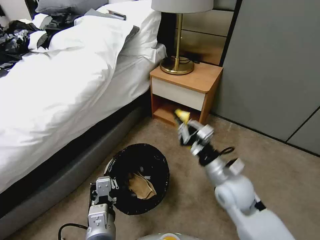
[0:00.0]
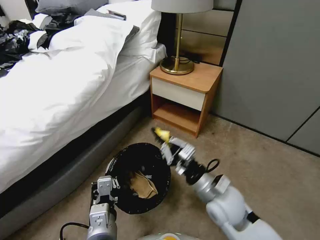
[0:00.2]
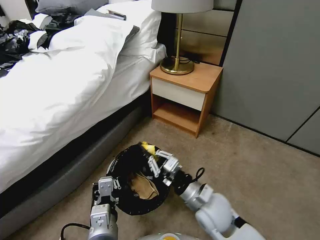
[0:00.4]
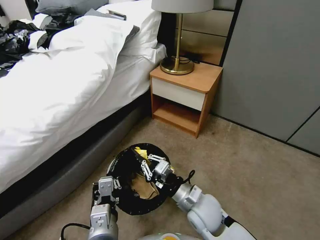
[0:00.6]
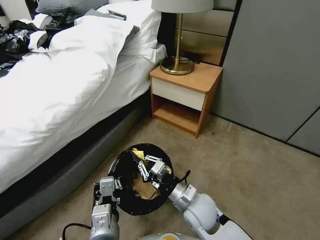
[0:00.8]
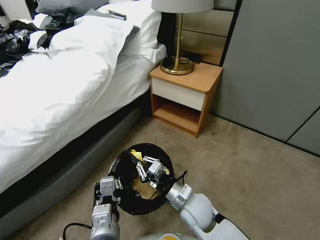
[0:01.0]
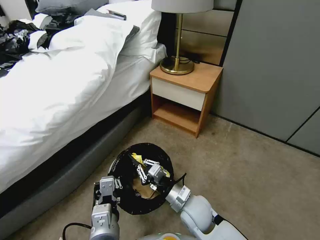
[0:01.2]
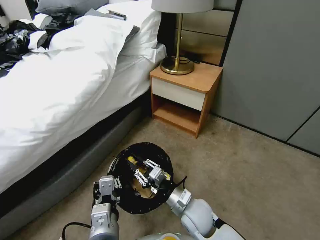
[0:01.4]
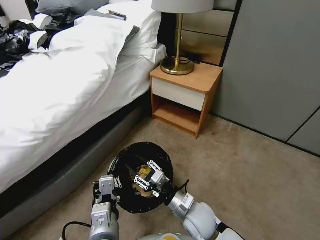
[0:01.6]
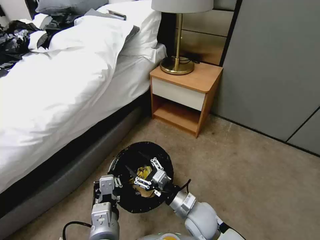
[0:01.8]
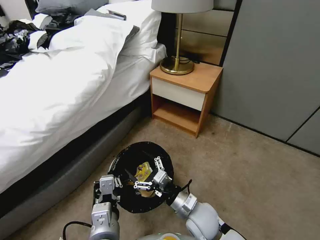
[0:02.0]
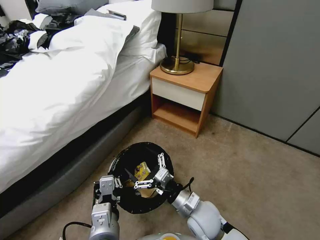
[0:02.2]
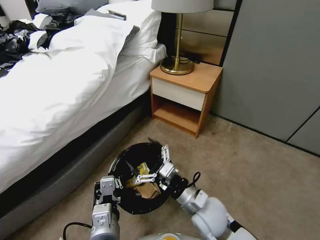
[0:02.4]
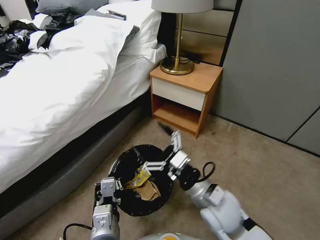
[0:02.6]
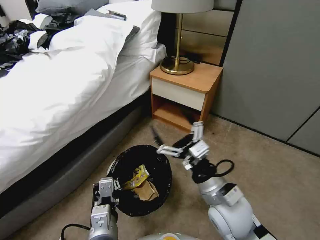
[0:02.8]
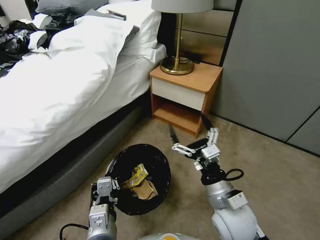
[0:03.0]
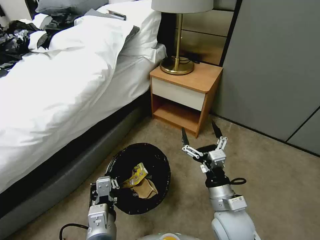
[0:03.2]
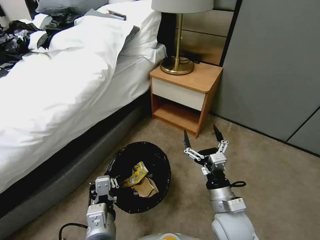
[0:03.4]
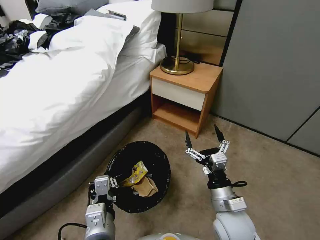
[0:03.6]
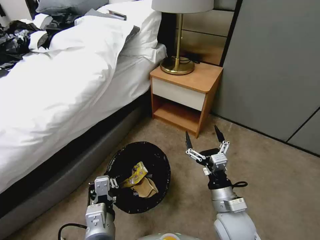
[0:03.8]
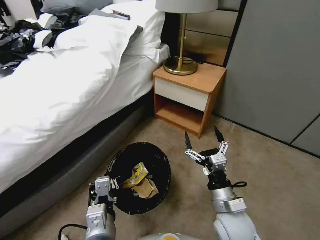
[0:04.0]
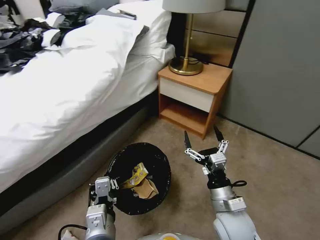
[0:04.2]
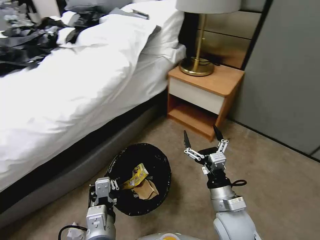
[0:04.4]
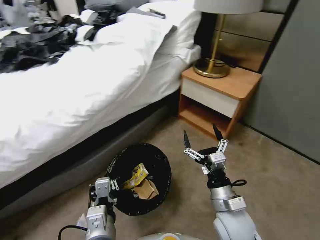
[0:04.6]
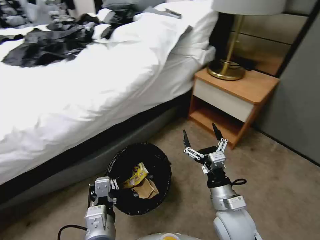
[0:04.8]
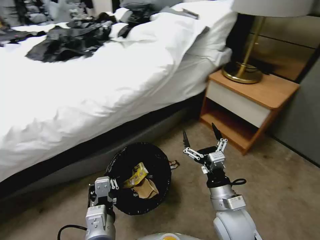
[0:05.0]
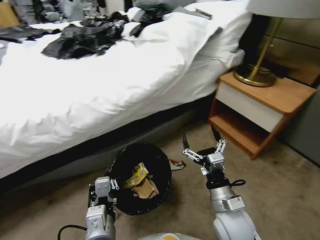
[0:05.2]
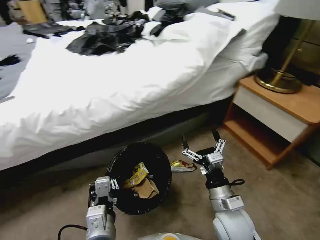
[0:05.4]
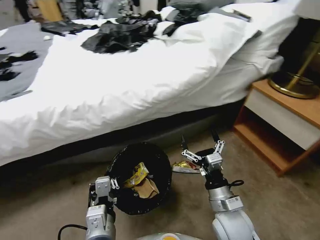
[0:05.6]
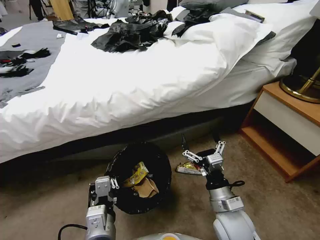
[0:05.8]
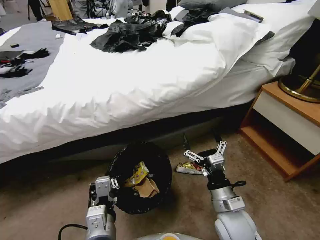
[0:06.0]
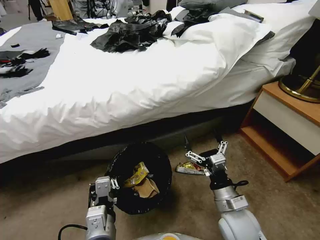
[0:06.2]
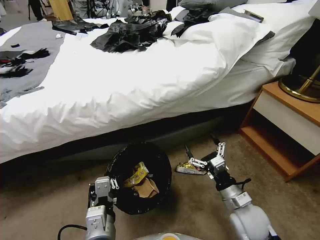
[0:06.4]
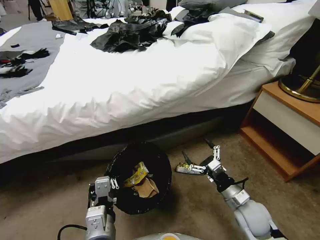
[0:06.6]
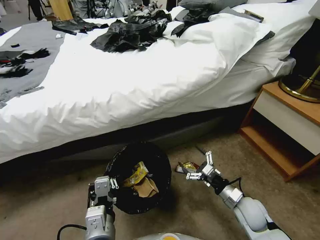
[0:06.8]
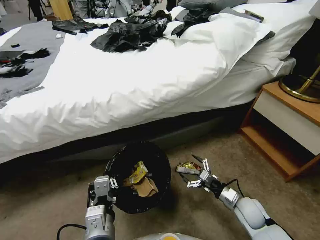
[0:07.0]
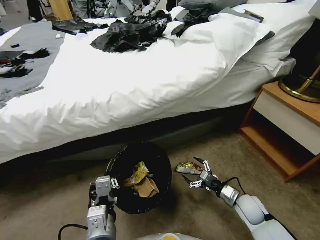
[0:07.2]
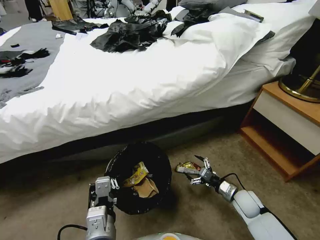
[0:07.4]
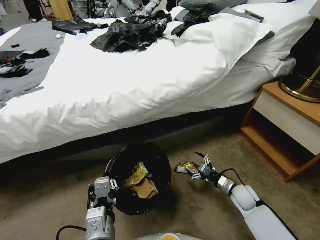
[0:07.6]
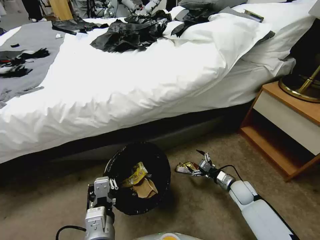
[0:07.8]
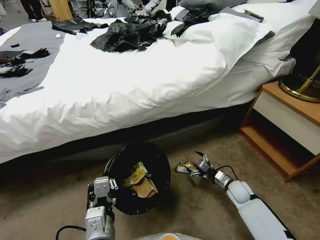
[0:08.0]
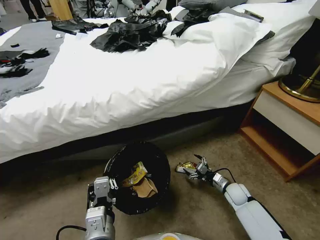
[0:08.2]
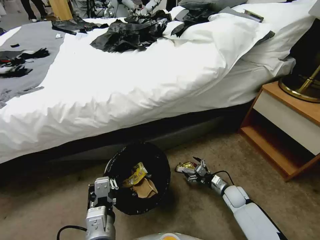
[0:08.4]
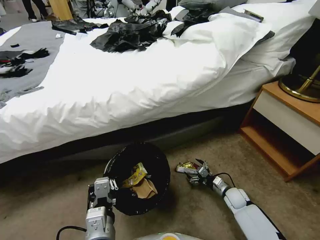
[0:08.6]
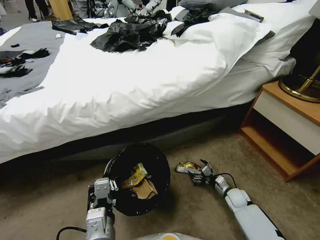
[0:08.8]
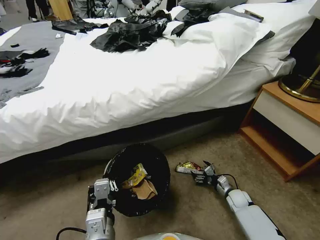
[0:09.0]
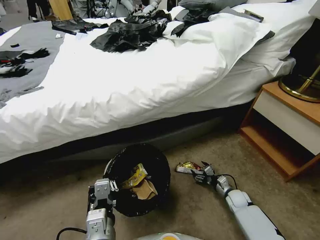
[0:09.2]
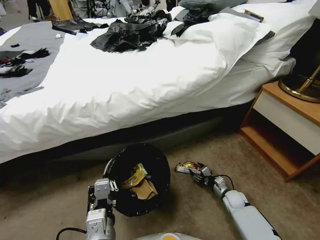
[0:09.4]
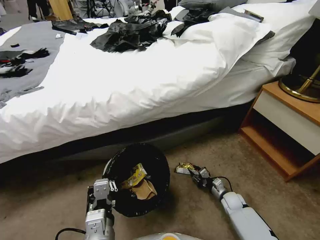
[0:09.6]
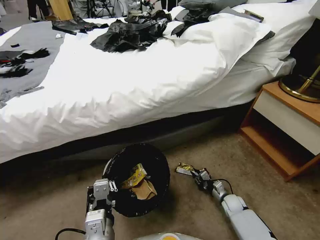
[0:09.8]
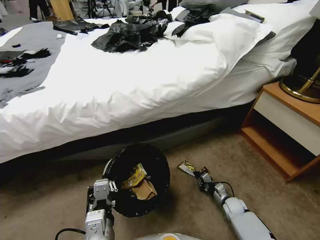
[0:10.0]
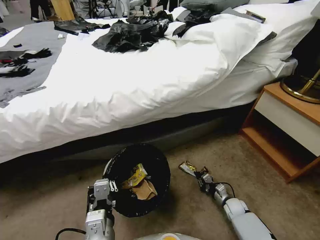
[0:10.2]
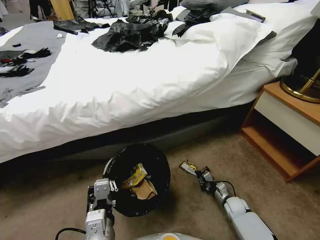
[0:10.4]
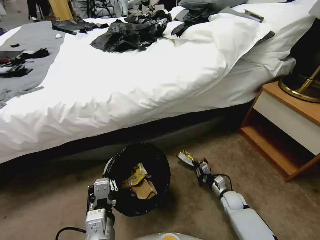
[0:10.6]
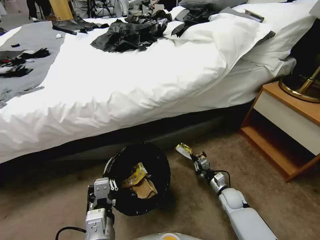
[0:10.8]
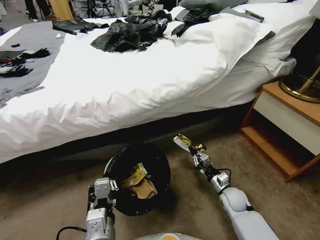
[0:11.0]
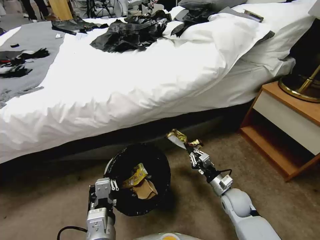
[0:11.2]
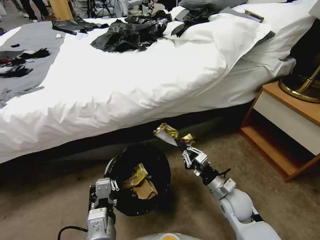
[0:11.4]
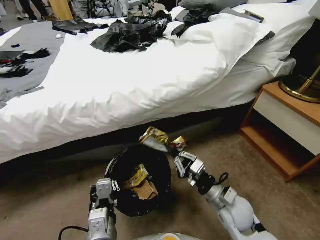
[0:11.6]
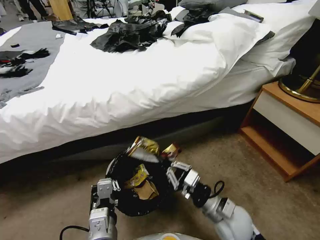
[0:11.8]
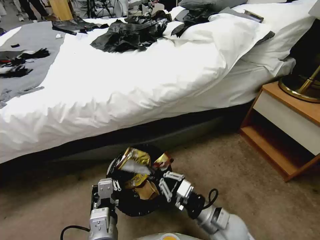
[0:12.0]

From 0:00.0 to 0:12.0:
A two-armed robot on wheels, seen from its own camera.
Task of the whole recording: Pick up the trash bin, then pick up the garbage from the floor and place it into the trash bin.
From 0:00.0 to 0:01.6: The right gripper moves downward and to the left, some 15 cm, and opens its fingers.
From 0:01.6 to 0:03.0: The right gripper moves upward and to the right, about 15 cm, and opens its fingers.
From 0:03.0 to 0:04.4: The right gripper ends up some 5 cm from where it was.
From 0:06.0 to 0:07.6: The right gripper is displaced downward, to the right and forward by some 25 cm.
From 0:07.6 to 0:09.0: The right gripper is displaced downward by about 10 cm.
From 0:09.0 to 0:10.4: The right gripper closes up.
From 0:10.4 to 0:12.0: The right gripper moves upward, to the left and backward, some 30 cm.

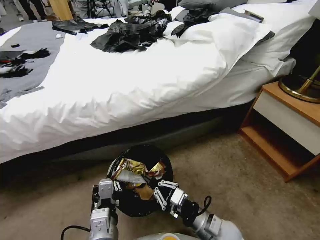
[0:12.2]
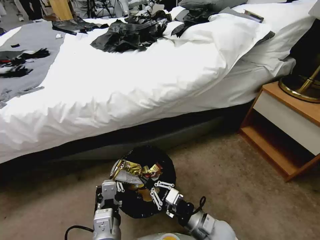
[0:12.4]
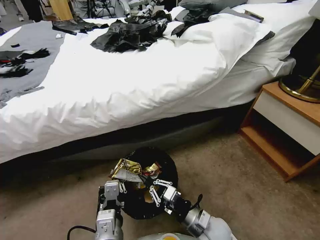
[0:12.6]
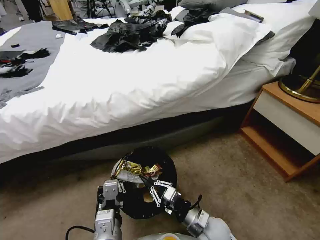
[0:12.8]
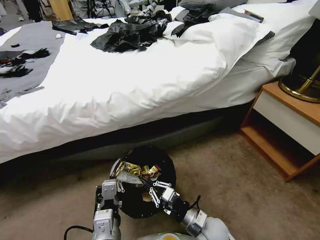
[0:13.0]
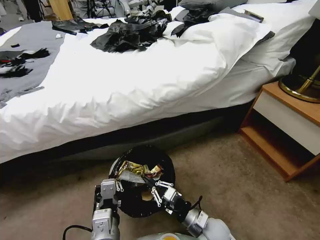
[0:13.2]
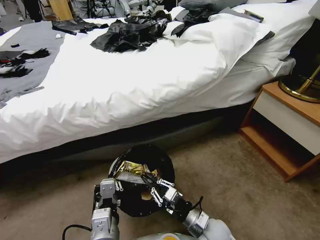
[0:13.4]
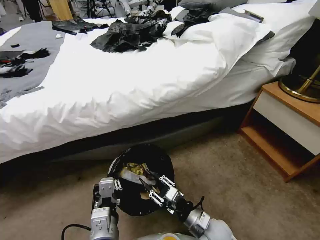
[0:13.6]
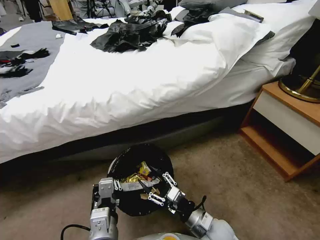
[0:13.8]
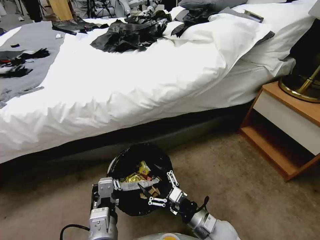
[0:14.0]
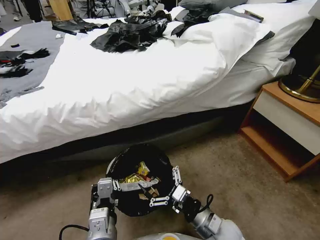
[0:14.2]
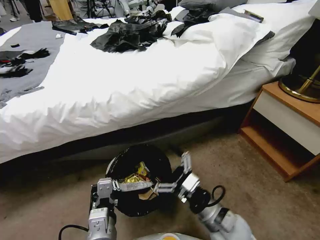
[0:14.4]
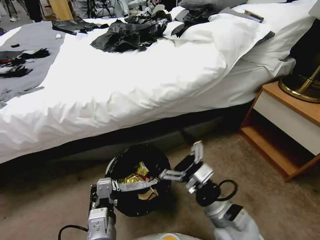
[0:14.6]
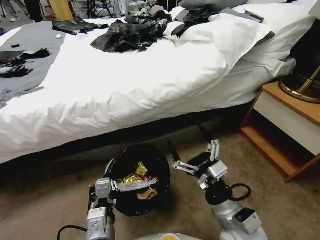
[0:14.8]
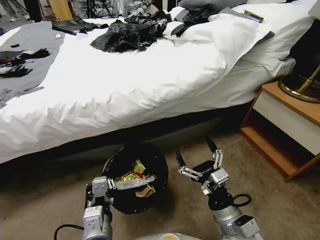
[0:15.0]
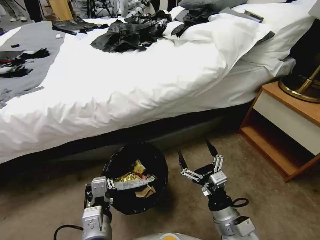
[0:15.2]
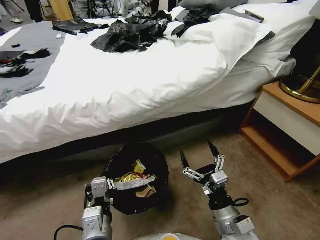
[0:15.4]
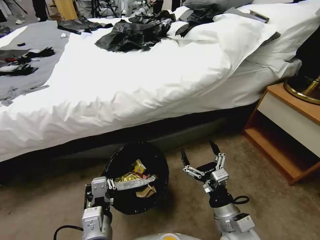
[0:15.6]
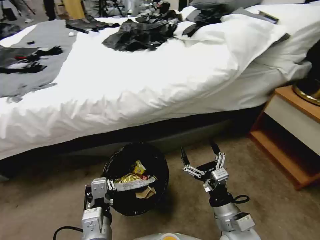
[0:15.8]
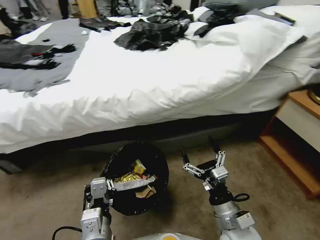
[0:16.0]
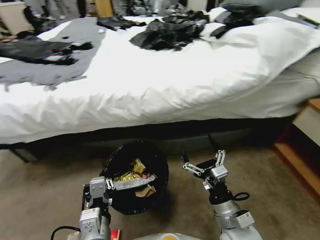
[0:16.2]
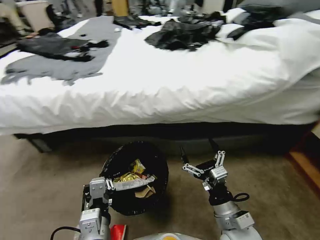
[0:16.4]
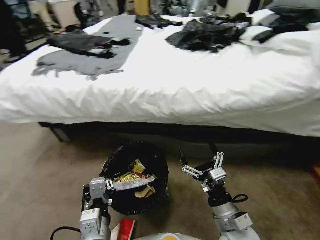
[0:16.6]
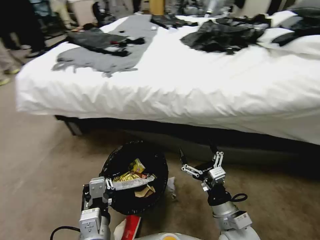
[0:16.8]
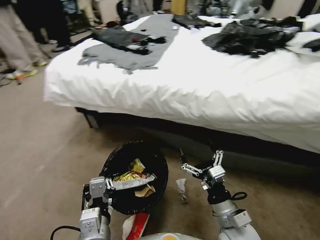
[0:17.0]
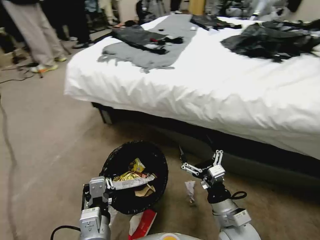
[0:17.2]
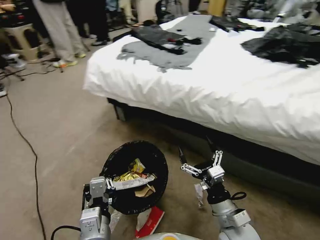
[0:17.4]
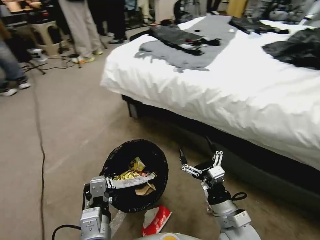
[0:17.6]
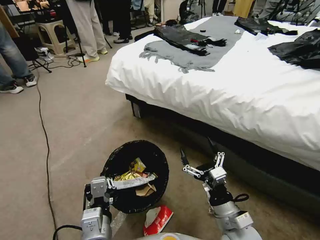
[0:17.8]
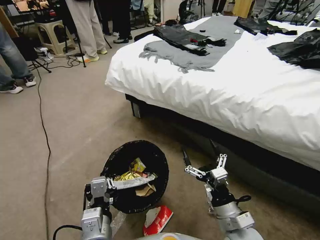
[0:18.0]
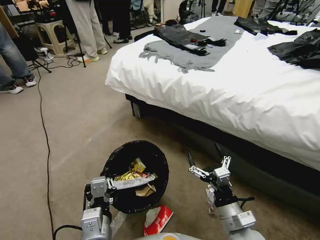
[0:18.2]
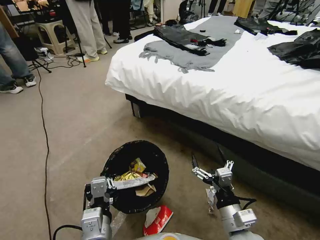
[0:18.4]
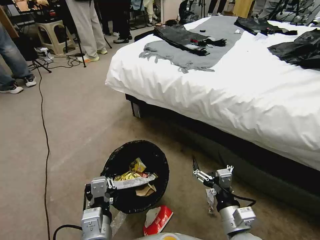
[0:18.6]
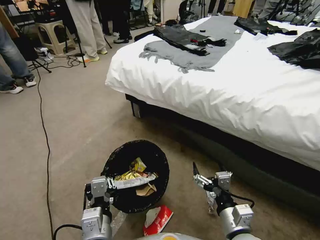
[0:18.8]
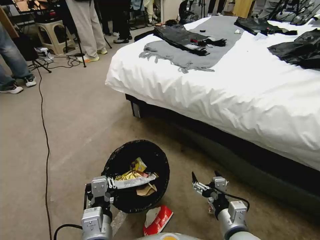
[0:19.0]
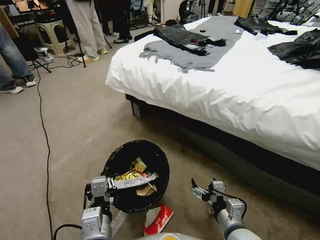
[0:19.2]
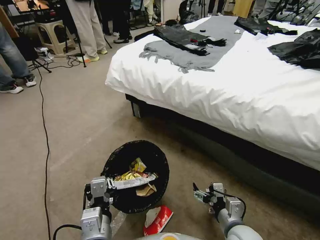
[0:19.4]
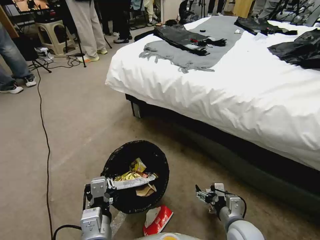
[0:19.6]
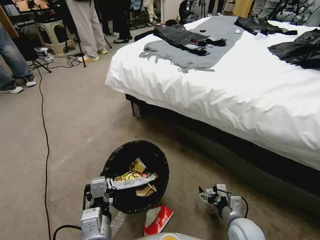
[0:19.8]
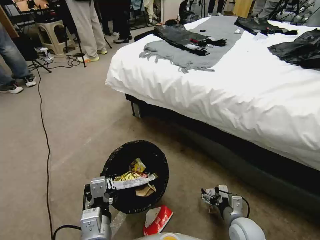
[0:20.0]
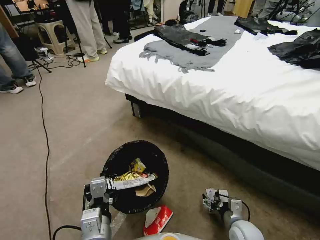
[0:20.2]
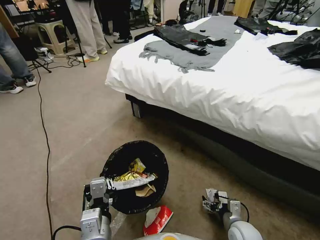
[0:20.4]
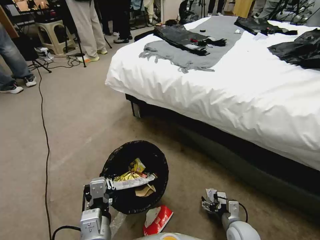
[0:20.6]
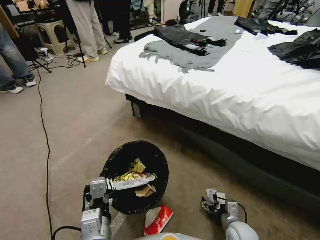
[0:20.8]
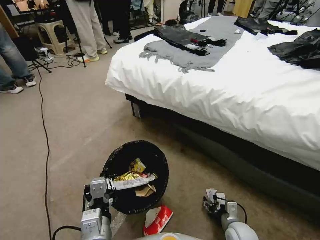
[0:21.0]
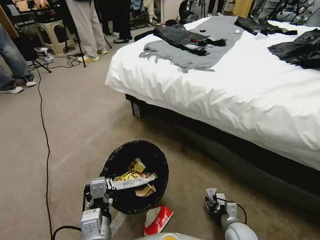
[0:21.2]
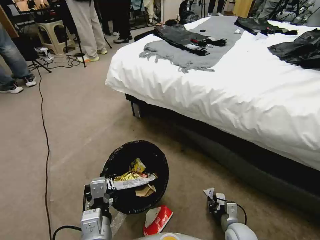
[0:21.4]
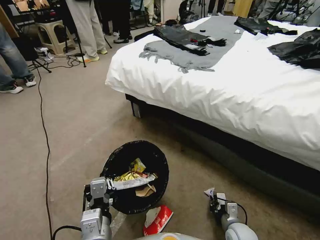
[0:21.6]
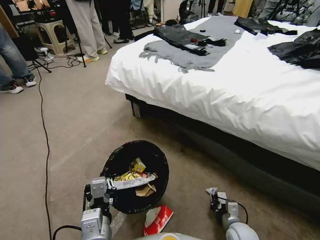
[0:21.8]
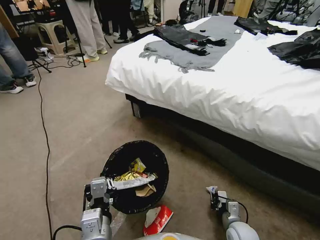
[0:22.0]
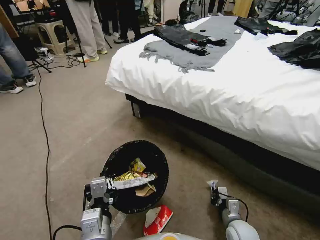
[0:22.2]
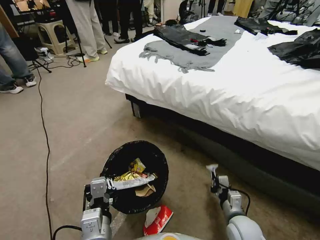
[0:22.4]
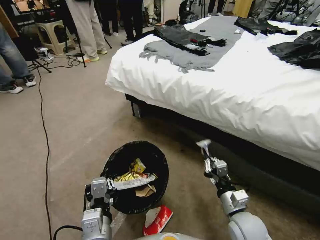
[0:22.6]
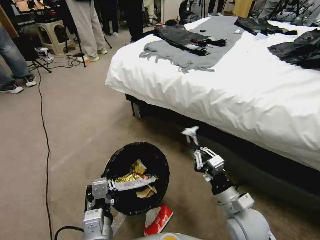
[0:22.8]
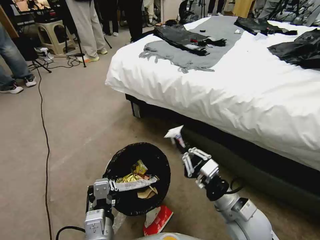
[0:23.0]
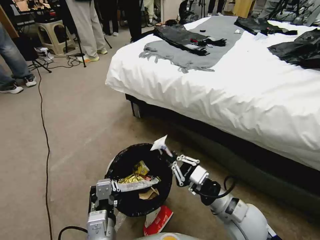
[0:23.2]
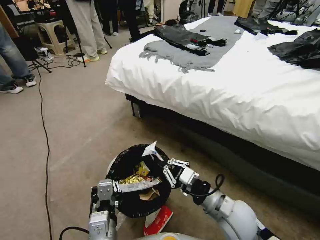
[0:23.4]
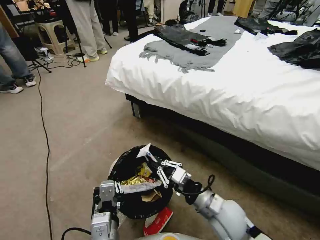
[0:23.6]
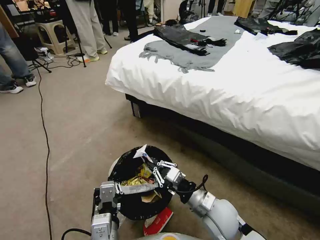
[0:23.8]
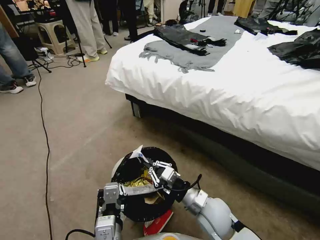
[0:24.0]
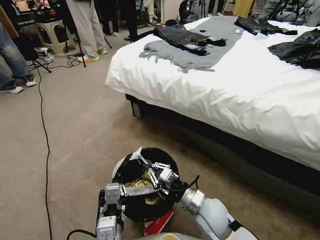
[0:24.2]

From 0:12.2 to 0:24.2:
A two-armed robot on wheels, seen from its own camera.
Task of the whole recording: Pick up the trash bin, then pick up the garbage from the floor and place it into the trash bin.
From 0:12.2 to 0:13.8: The right gripper opens up.
From 0:13.8 to 0:15.2: The right gripper shifts approximately 5 cm upward, and opens up.
From 0:18.2 to 0:19.8: The right gripper is displaced downward and to the right by approximately 10 cm.
From 0:19.8 to 0:21.2: The right gripper is displaced downward by about 10 cm, and closes up.
From 0:21.2 to 0:22.6: The right gripper goes about 15 cm upward, and closes.
From 0:22.6 to 0:24.2: The right gripper shifts roughly 10 cm to the left.
